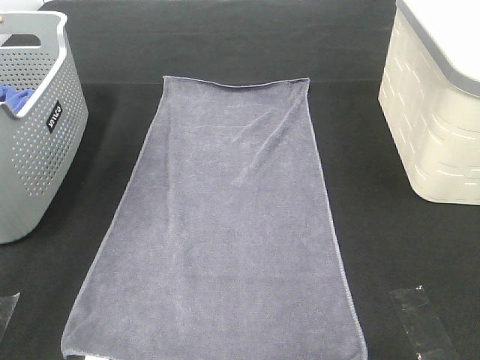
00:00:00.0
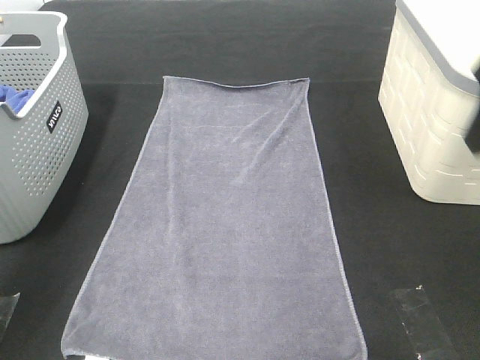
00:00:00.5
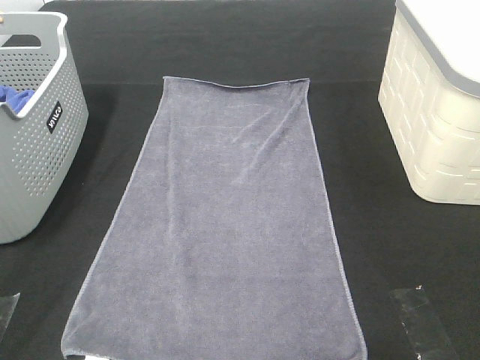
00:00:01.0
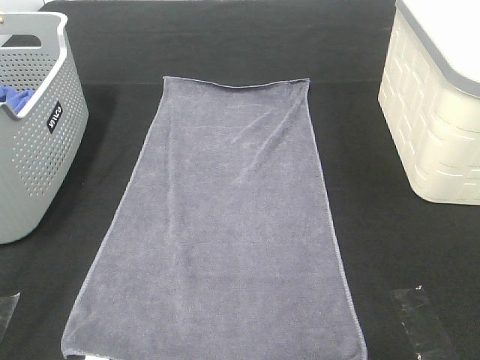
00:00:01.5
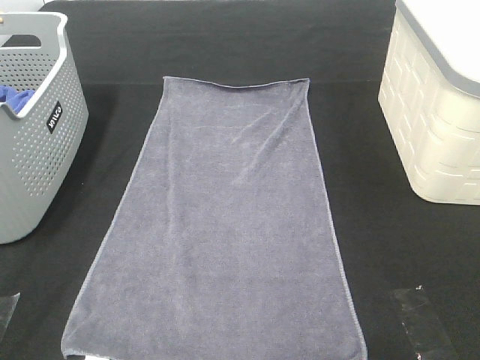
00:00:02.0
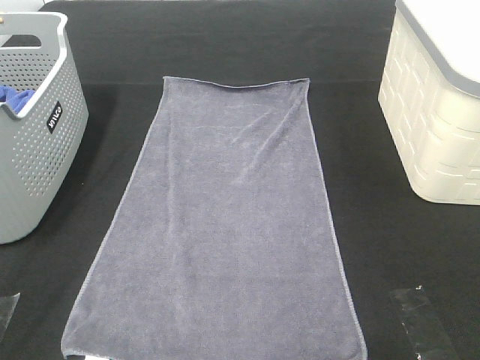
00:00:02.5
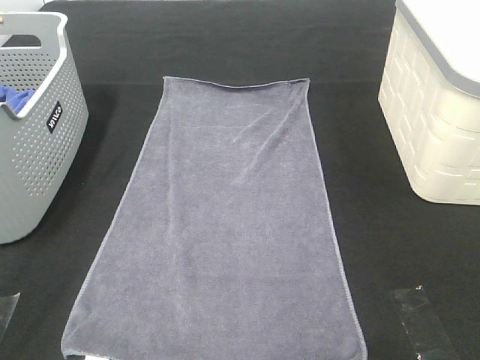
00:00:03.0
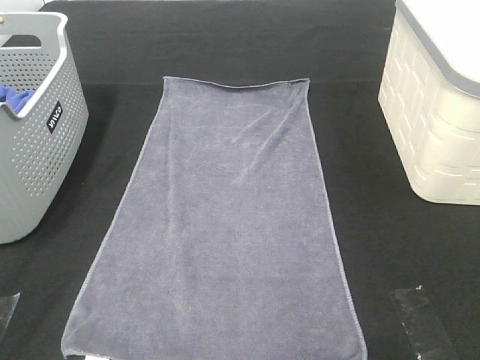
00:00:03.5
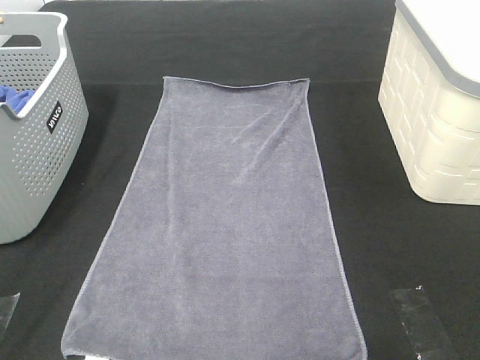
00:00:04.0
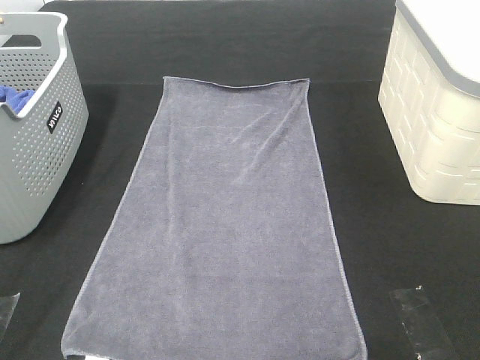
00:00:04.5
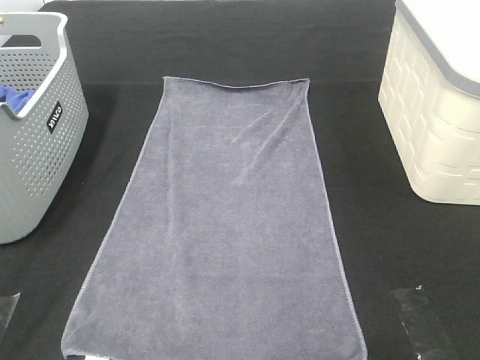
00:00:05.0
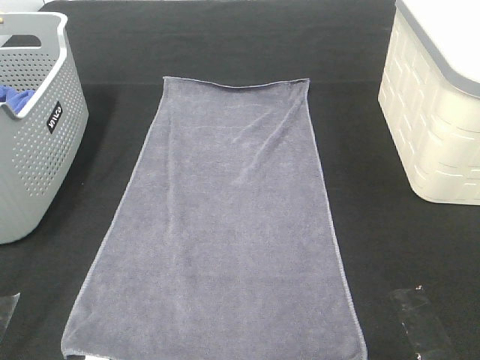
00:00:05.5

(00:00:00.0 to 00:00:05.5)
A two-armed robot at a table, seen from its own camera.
Task of the whole recording: Remove the towel and place it.
00:00:00.0 - 00:00:02.0: The left gripper goes roughly 35 cm backward and downward. Meanwhile the right gripper is displaced backward by roughly 30 cm.

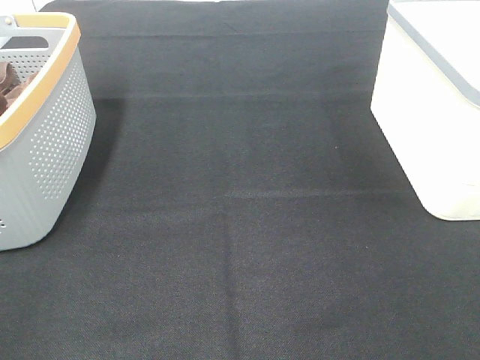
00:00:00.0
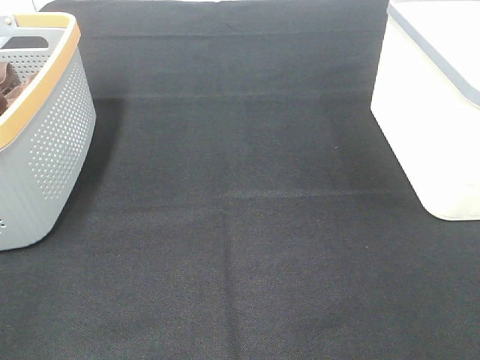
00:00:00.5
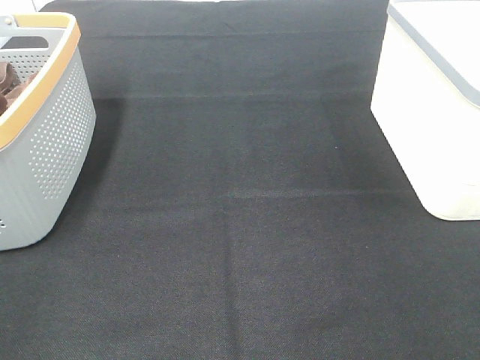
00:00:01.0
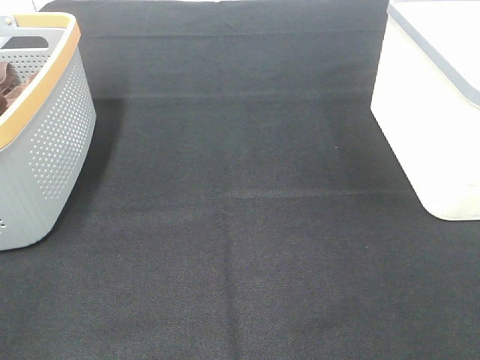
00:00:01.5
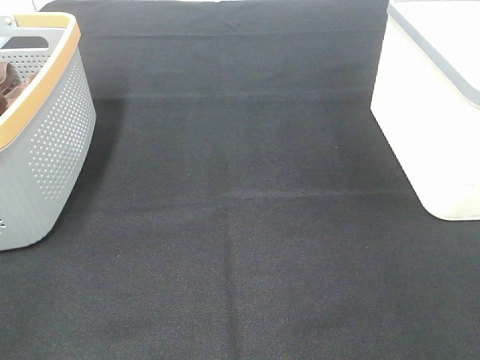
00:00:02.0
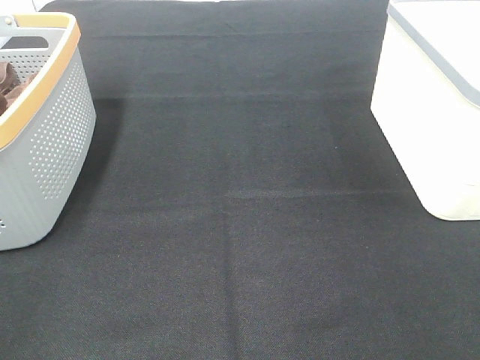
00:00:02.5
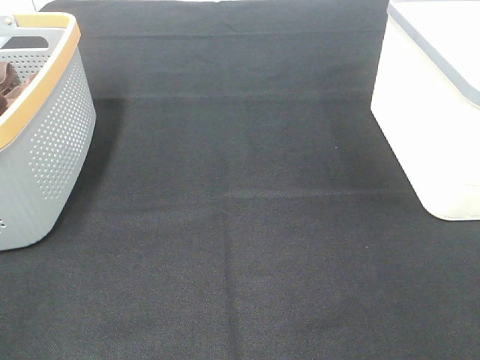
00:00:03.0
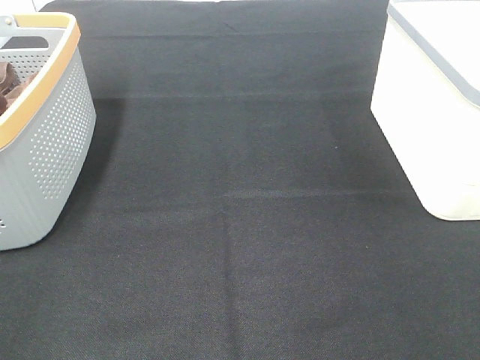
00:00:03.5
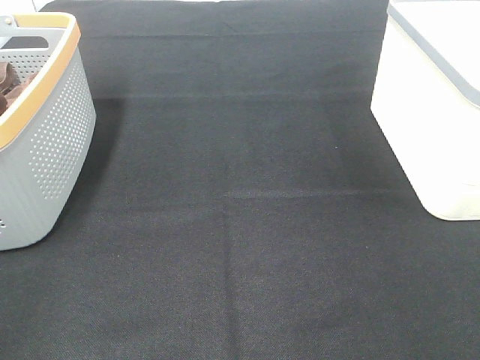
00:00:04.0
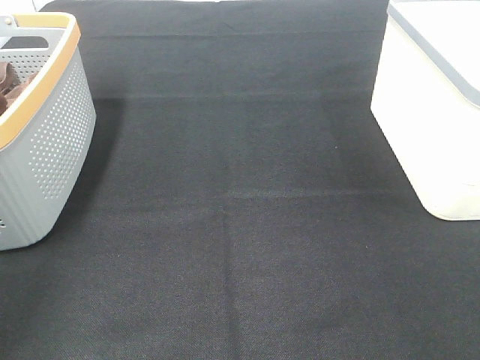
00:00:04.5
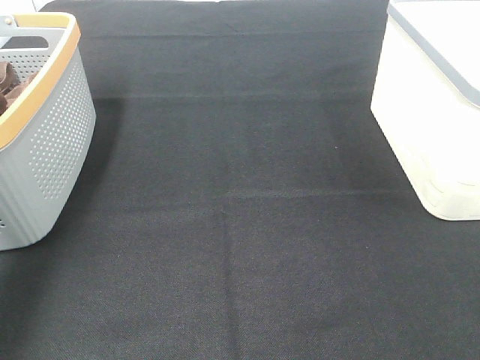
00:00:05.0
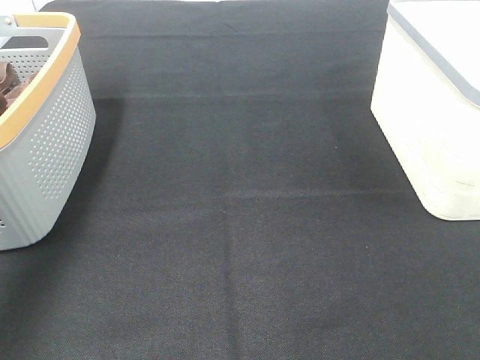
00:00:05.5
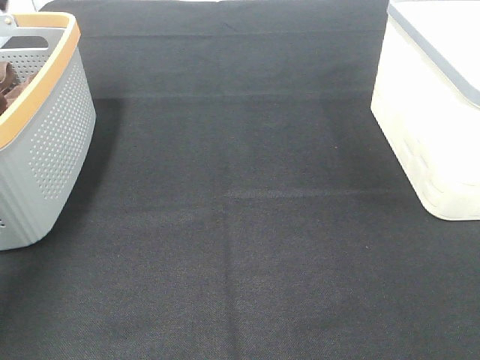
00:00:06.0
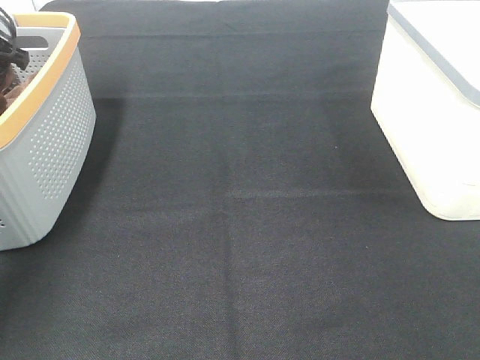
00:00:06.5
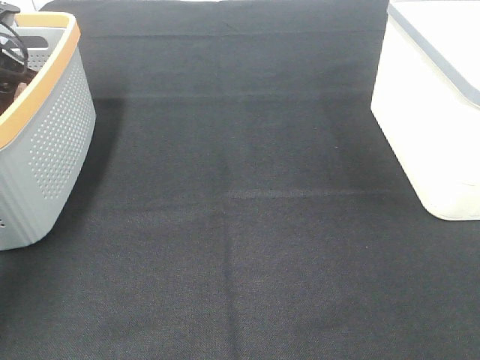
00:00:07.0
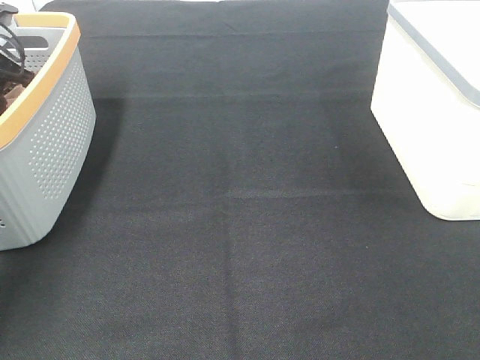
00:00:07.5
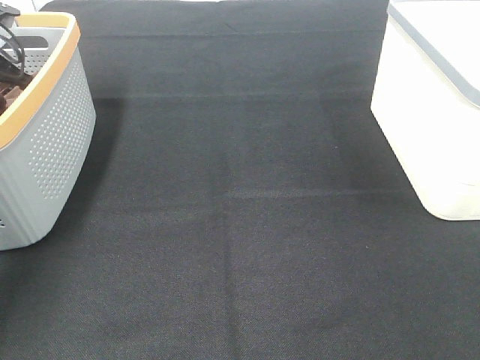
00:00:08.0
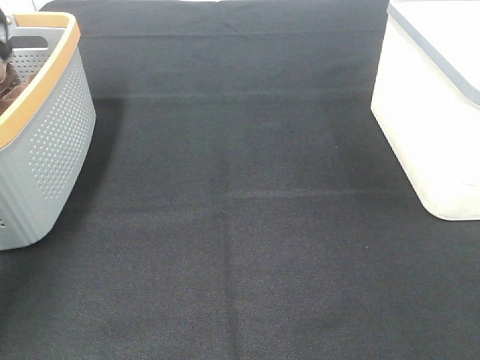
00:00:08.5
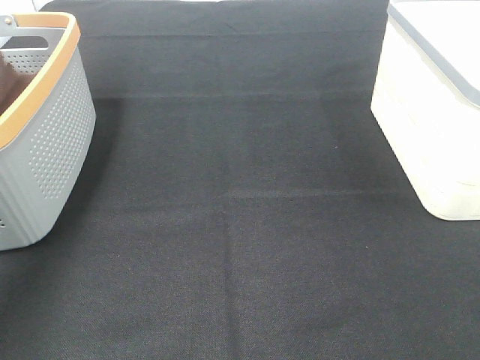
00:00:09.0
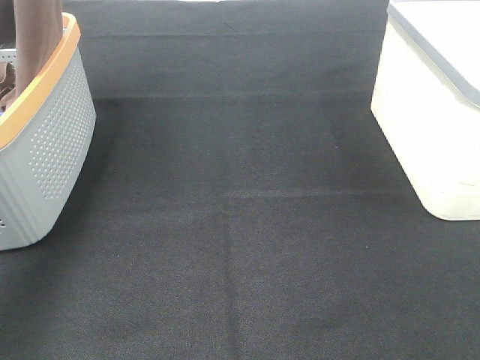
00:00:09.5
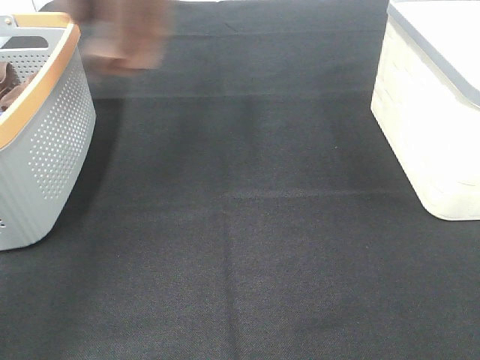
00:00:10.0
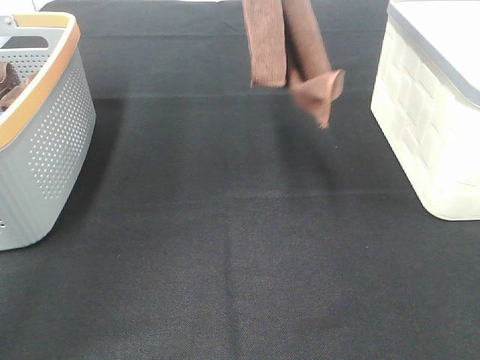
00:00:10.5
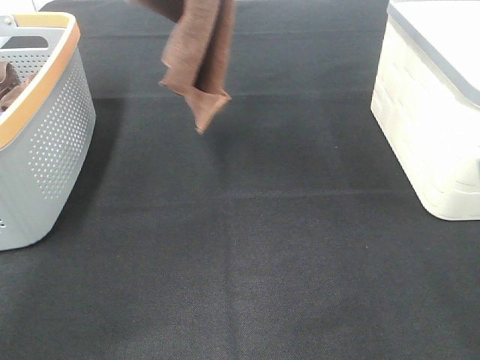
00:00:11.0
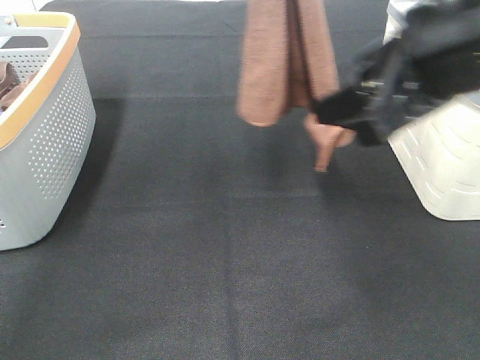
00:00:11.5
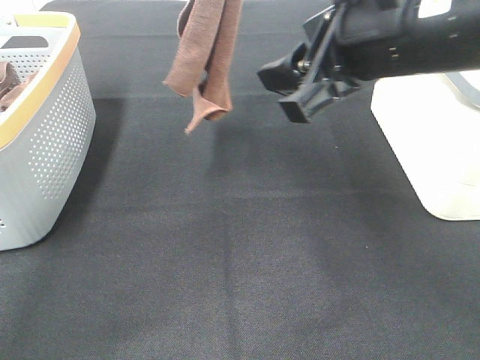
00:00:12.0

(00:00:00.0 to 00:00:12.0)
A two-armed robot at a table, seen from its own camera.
Task of the whole recording: Remove the towel and place it.
00:00:00.0 - 00:00:02.0: Both grippers stay put.
00:00:04.0 - 00:00:06.0: The left gripper heads forward, covering about 40 cm.
00:00:06.0 - 00:00:08.0: The left gripper shifts about 10 cm downward, and closes.
00:00:08.0 - 00:00:10.0: The left gripper is displaced upward and to the right by some 35 cm.
00:00:10.0 - 00:00:12.0: The left gripper travels to the right and downward by approximately 15 cm, while the right gripper shifts roughly 30 cm forward and to the left.

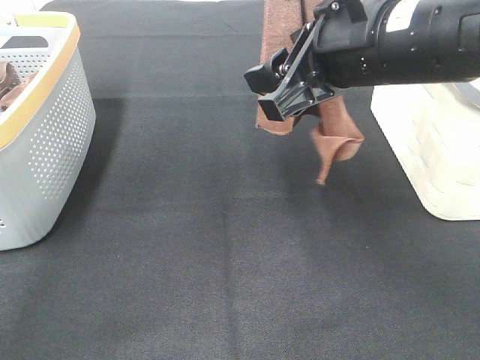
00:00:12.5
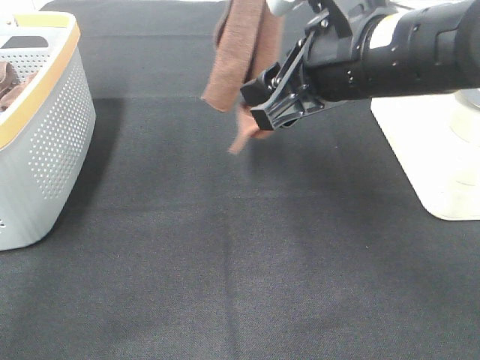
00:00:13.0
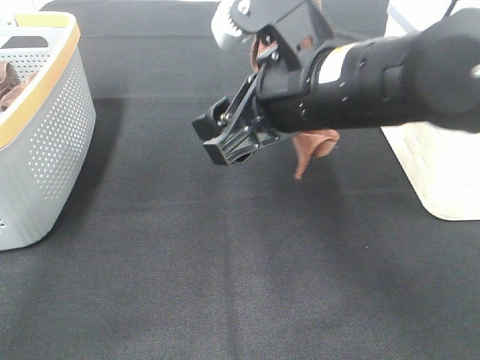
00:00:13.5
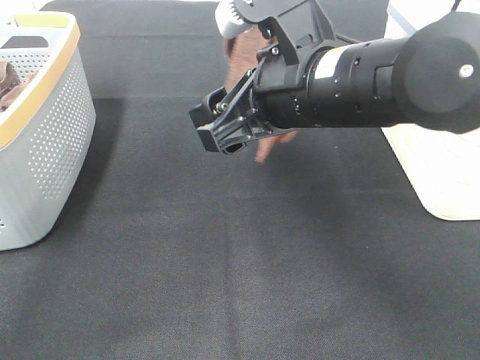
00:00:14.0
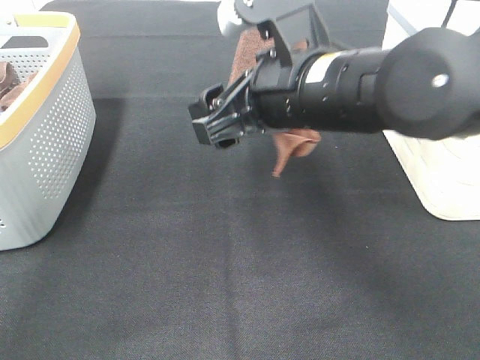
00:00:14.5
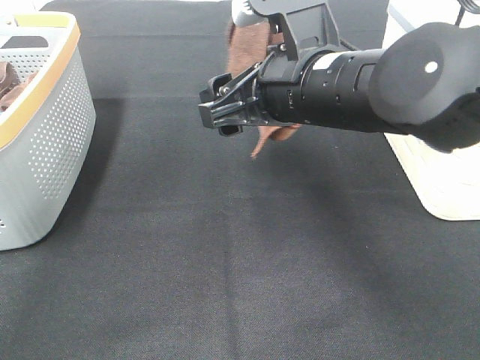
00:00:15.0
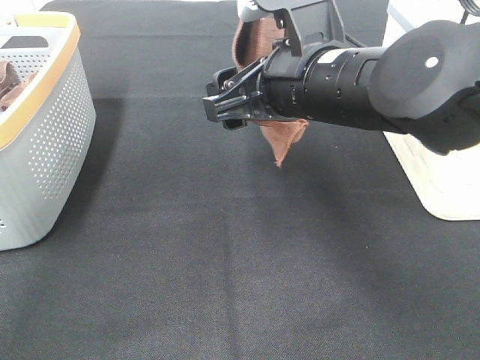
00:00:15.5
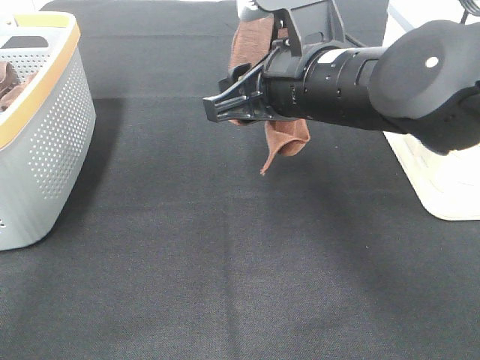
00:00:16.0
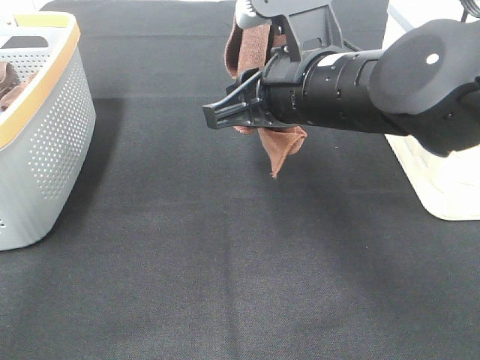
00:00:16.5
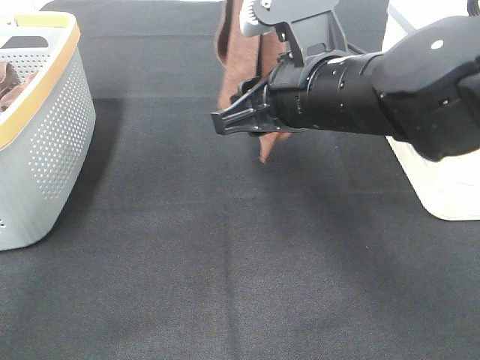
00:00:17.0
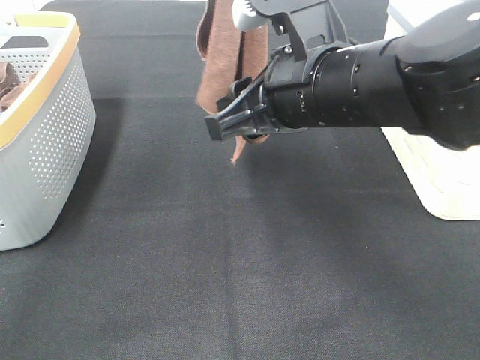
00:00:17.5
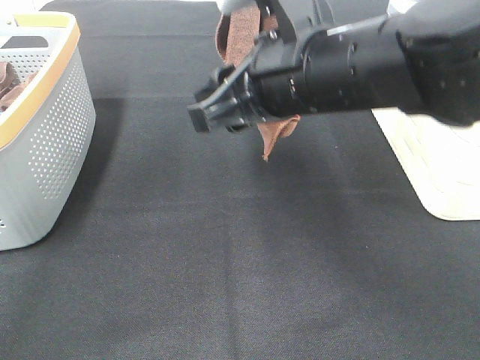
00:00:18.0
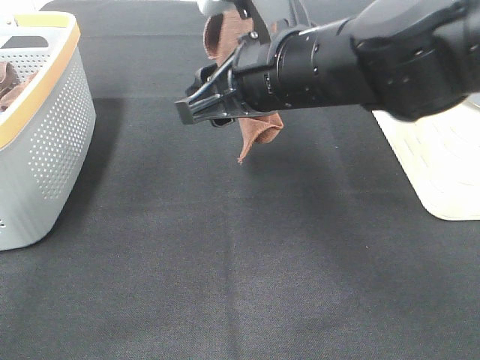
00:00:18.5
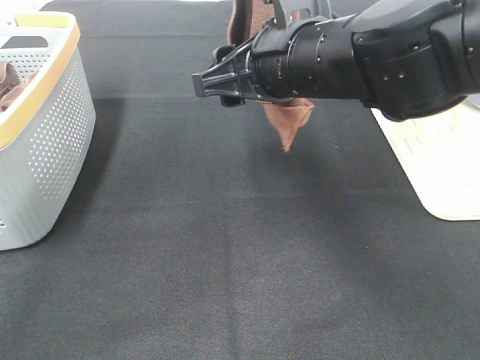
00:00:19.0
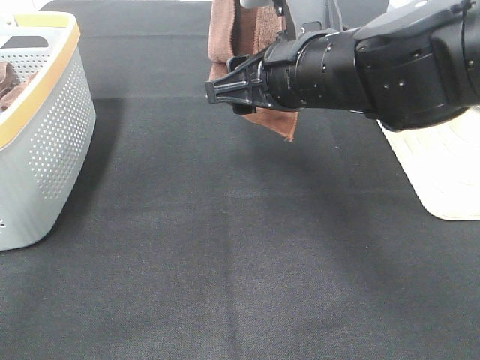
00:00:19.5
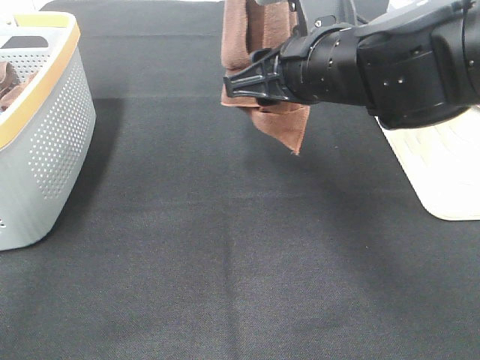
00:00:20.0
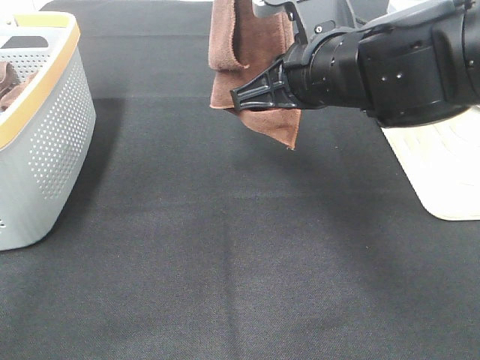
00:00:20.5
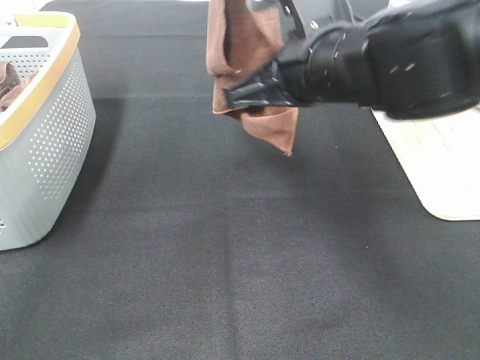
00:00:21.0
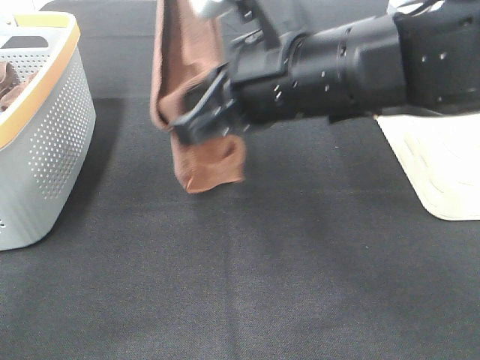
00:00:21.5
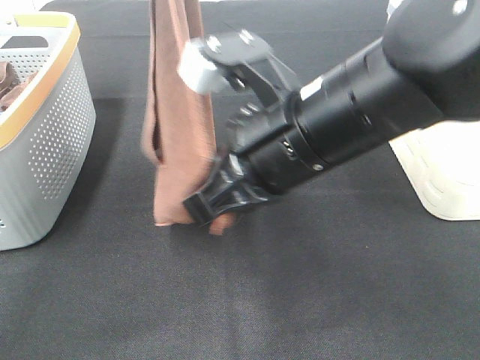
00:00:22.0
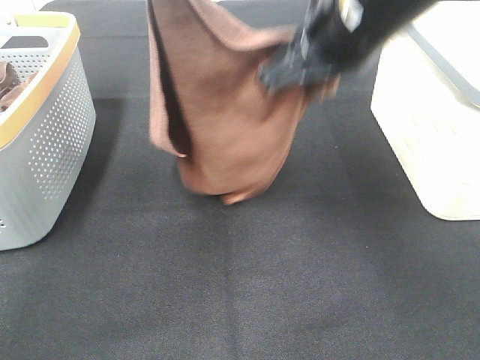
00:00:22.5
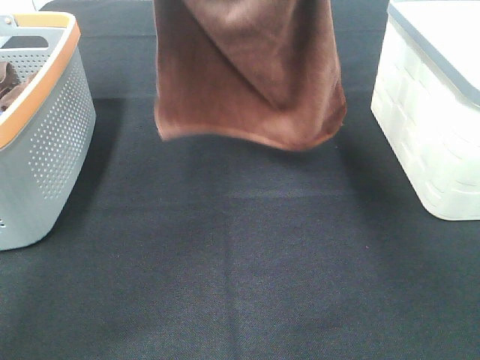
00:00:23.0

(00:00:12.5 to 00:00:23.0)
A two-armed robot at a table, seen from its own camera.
Task of the whole recording: Remove the towel and place it.
Step, 00:00:12.5 - 00:00:18.0: Right hand: grab a corner of the brown towel and straighten it.
Step, 00:00:18.5 - 00:00:21.0: Left hand: spread the brown towel flat on the table.
Step, 00:00:18.5 - 00:00:21.0: Right hand: spread the brown towel flat on the table.
00:00:12.5 - 00:00:14.5: The right gripper shifts by approximately 5 cm.
00:00:14.5 - 00:00:16.5: The right gripper closes.
00:00:16.5 - 00:00:19.0: The right gripper opens.
00:00:19.0 - 00:00:21.0: The right gripper closes up.
00:00:21.0 - 00:00:23.0: The left gripper heads downward and forward, covering about 10 cm, while the right gripper heads upward, covering roughly 10 cm.
